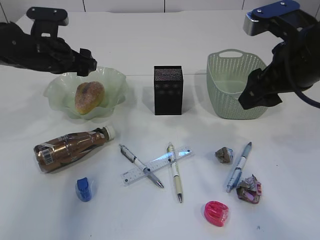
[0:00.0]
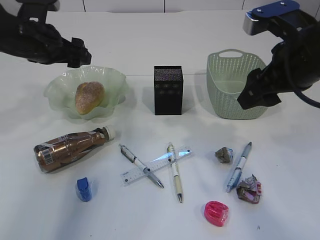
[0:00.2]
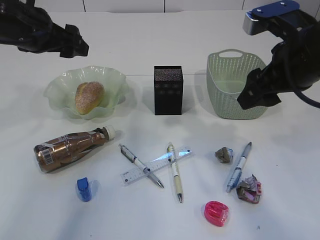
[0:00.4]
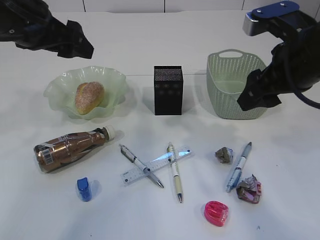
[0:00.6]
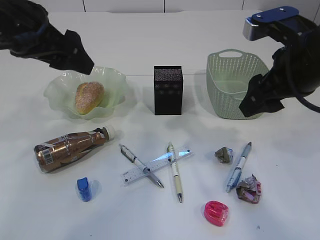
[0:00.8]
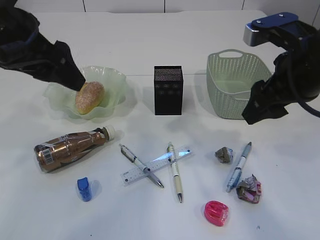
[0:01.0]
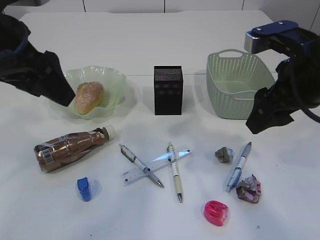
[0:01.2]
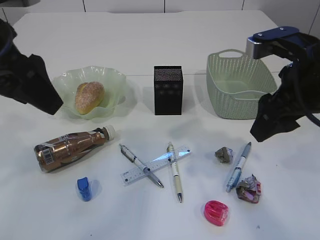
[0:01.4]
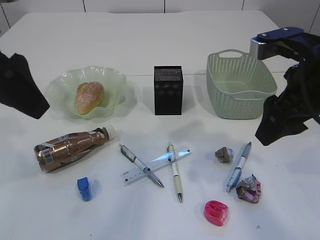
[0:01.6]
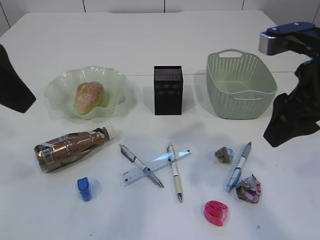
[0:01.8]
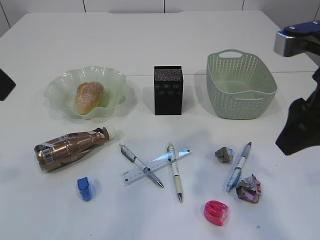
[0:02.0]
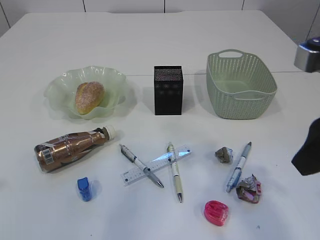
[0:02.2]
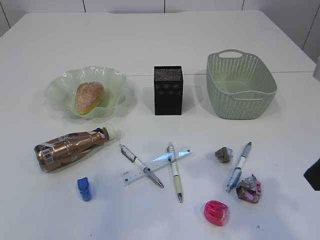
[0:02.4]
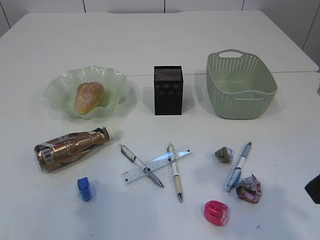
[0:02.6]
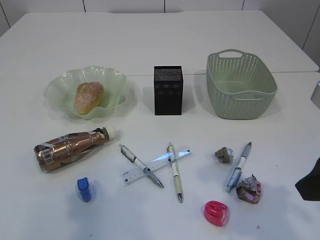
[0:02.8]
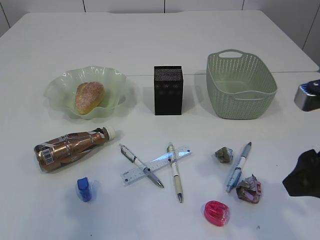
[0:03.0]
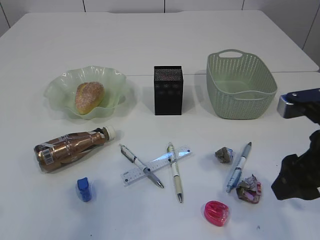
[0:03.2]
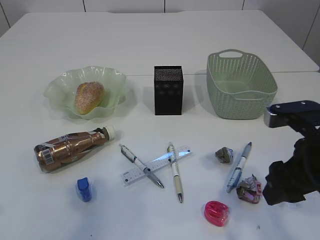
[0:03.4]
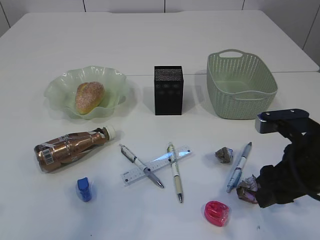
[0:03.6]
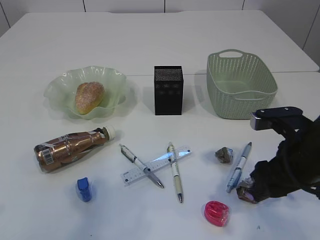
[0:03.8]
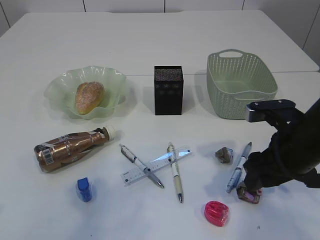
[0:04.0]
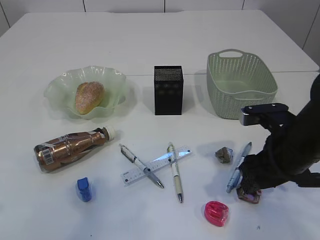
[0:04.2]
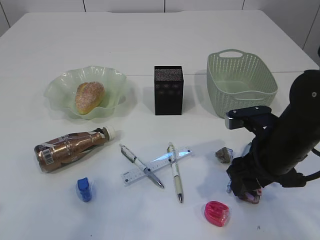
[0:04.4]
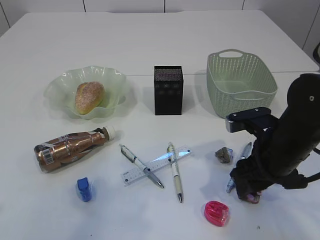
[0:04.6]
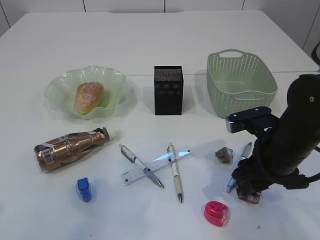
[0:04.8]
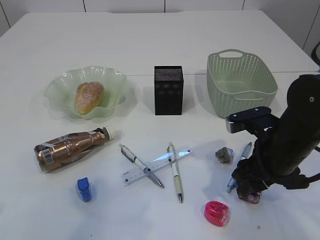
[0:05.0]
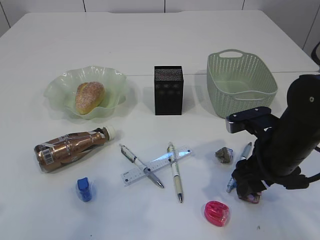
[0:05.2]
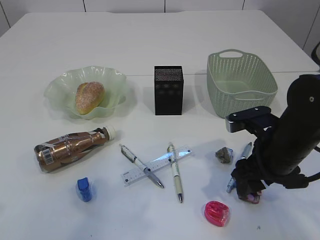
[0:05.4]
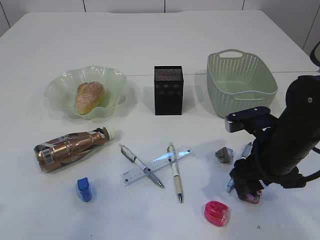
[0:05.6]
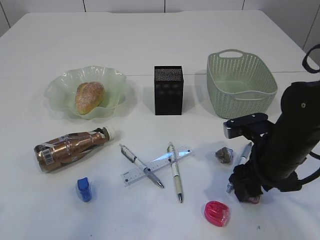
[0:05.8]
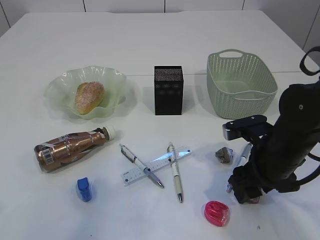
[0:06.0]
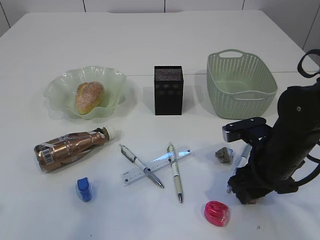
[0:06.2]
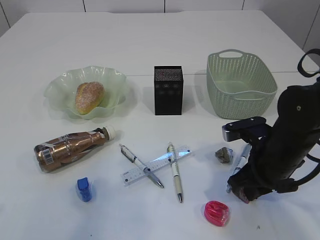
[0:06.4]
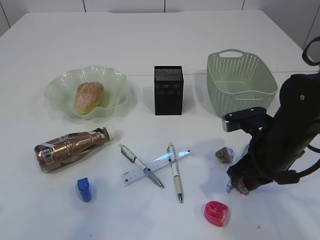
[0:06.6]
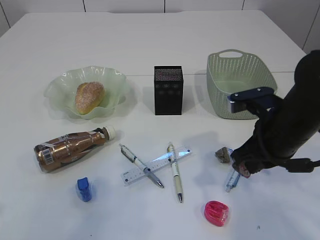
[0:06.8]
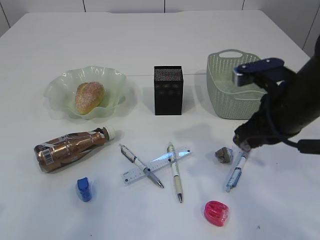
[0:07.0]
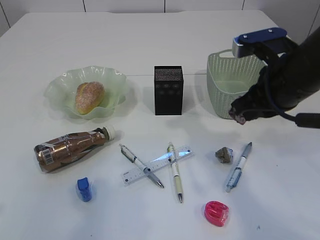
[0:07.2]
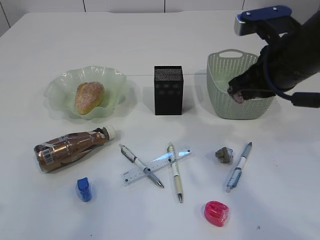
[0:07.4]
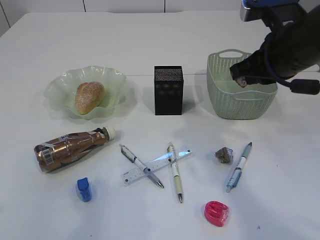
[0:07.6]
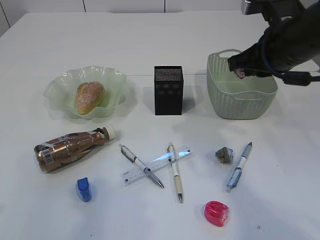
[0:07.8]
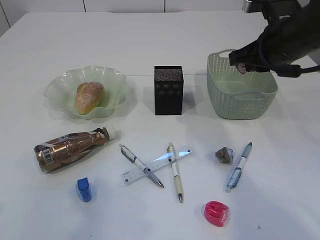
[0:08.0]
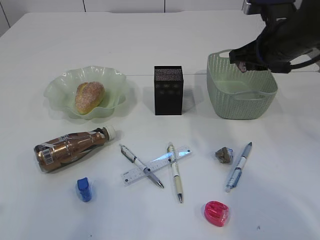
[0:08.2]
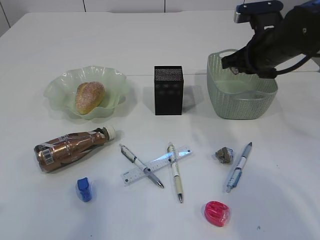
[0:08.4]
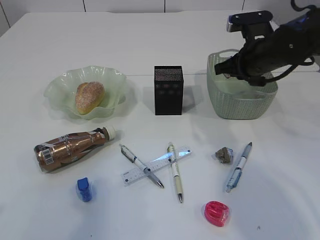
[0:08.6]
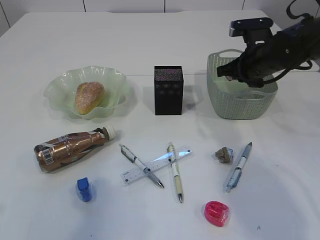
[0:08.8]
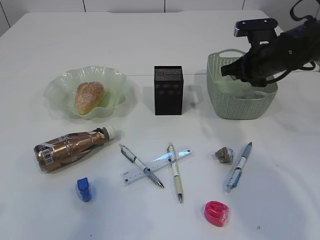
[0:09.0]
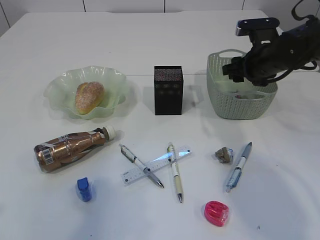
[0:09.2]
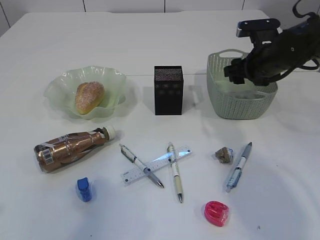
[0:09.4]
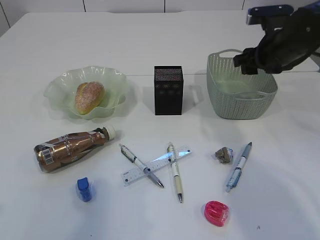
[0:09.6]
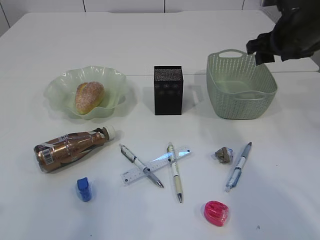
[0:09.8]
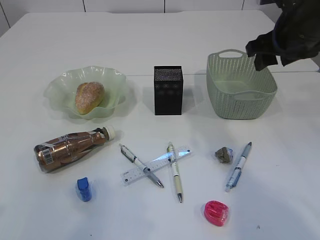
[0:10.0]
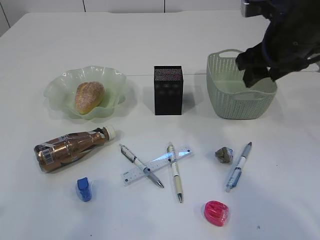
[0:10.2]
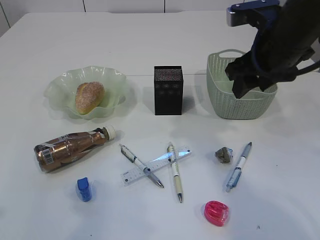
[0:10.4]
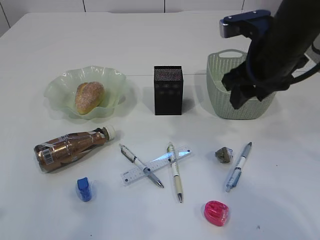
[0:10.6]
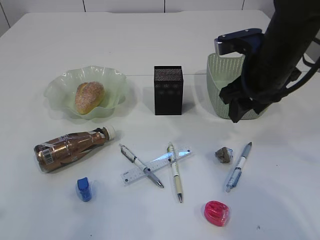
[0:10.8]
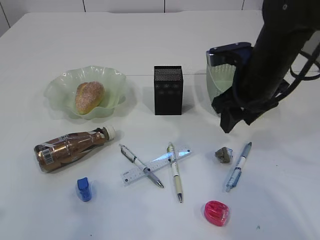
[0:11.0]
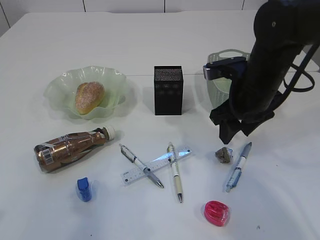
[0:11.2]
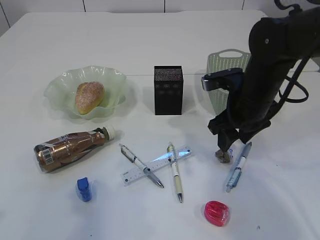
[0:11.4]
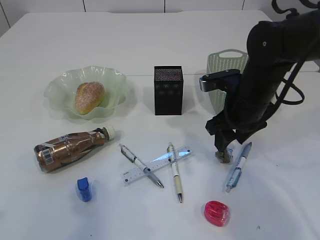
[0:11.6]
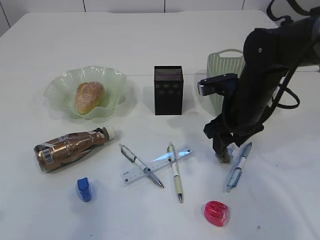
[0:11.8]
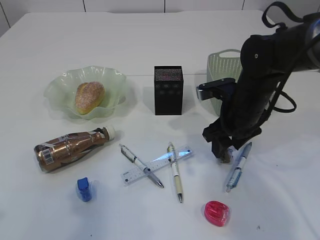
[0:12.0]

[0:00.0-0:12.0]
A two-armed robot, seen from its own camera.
Step, 0:00.6 to 0:07.6: Pick up the waste paper.
Step, 0:07.8 to 0:09.6: Place the waste paper in the basket.
0:00.0 to 0:01.6: The left gripper heads backward and upward, covering about 25 cm.
0:01.6 to 0:03.0: The left gripper moves backward and to the left, some 15 cm, while the right gripper is displaced backward by some 10 cm.
0:03.0 to 0:04.4: The right gripper heads downward and forward, covering roughly 15 cm.
0:04.4 to 0:06.0: The grippers move only a little.
0:06.0 to 0:07.6: The right gripper heads upward, covering approximately 15 cm, and closes its fingers.
0:07.6 to 0:09.0: The right gripper travels forward and downward by some 15 cm.
0:09.0 to 0:10.4: The right gripper moves backward, upward and to the left, about 15 cm, and opens.
0:10.4 to 0:12.0: The right gripper travels downward by about 15 cm.

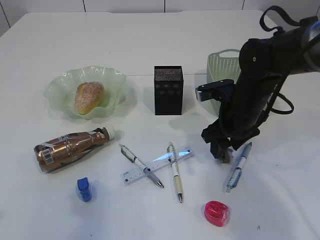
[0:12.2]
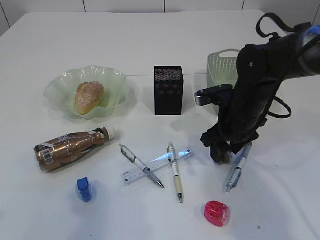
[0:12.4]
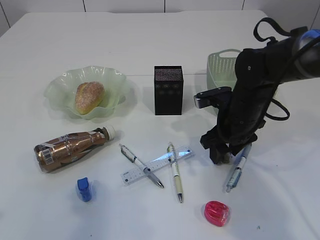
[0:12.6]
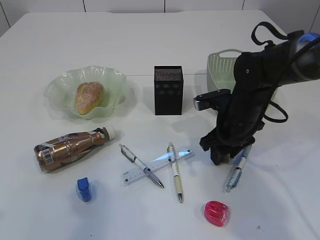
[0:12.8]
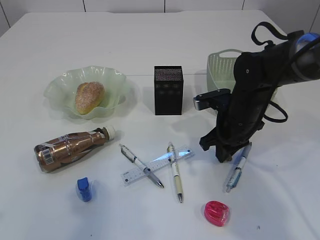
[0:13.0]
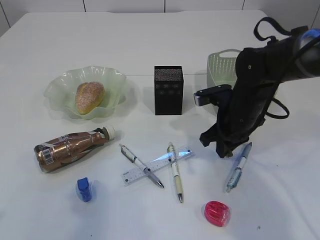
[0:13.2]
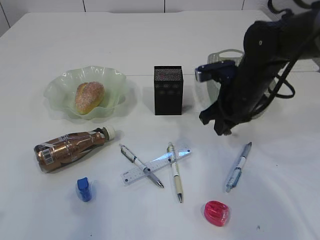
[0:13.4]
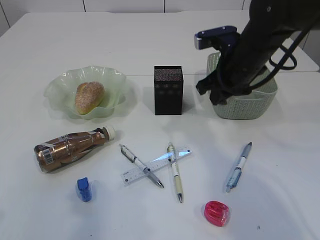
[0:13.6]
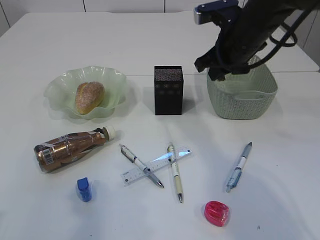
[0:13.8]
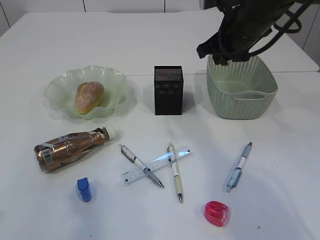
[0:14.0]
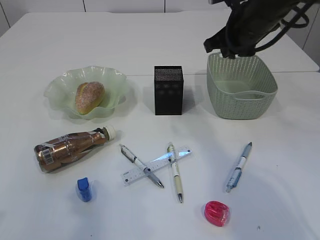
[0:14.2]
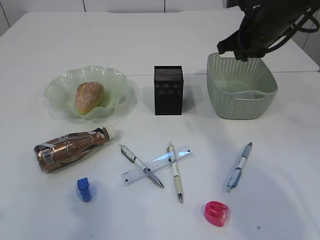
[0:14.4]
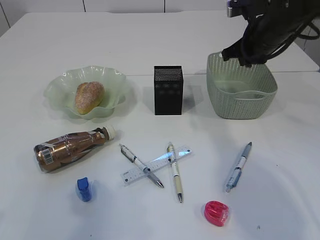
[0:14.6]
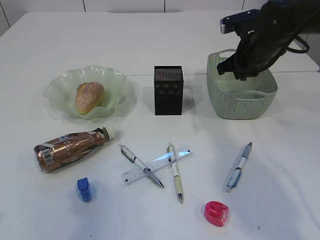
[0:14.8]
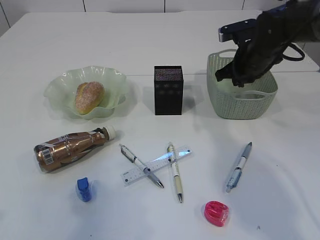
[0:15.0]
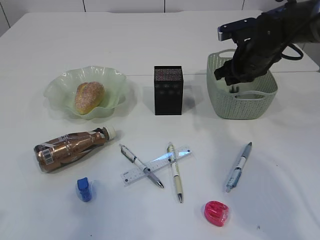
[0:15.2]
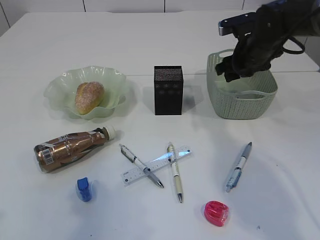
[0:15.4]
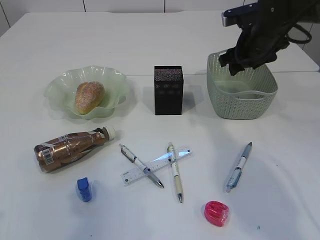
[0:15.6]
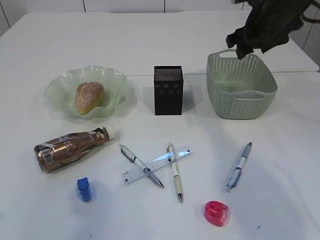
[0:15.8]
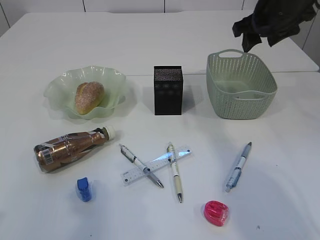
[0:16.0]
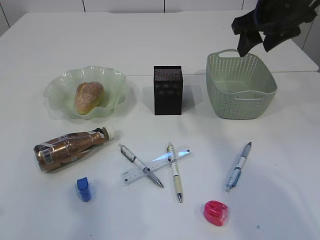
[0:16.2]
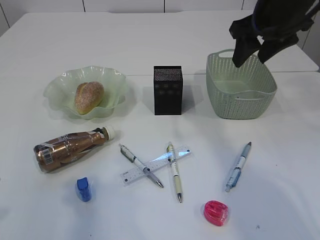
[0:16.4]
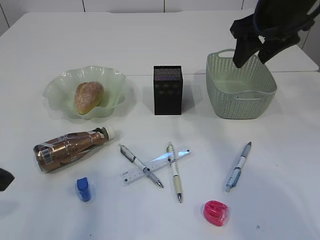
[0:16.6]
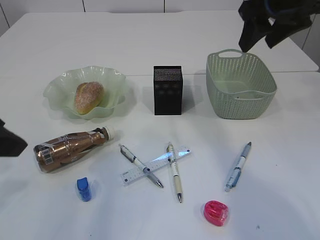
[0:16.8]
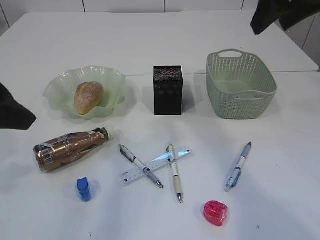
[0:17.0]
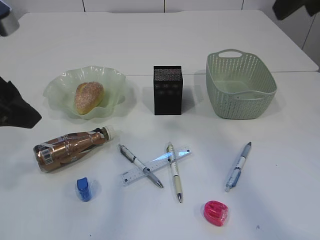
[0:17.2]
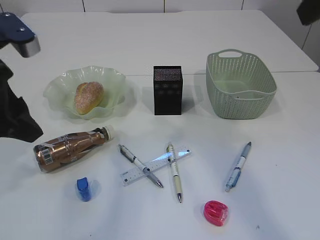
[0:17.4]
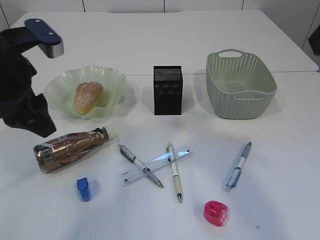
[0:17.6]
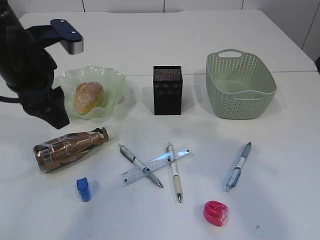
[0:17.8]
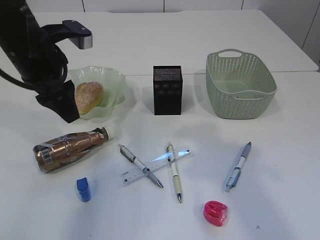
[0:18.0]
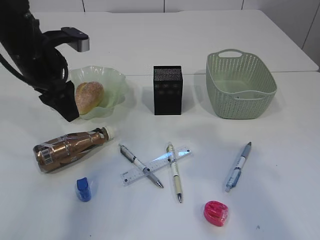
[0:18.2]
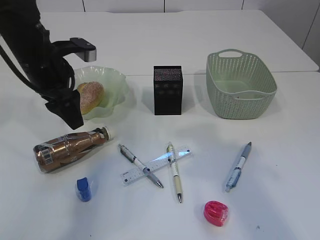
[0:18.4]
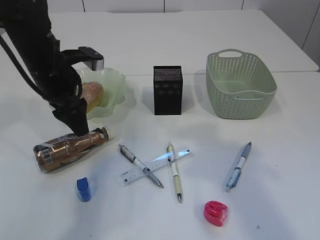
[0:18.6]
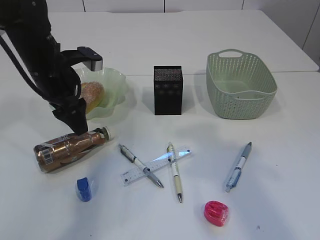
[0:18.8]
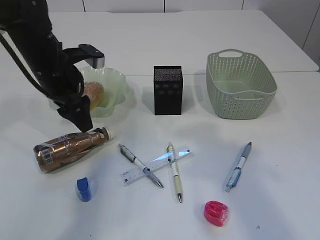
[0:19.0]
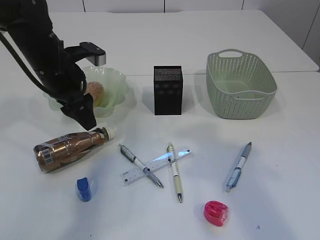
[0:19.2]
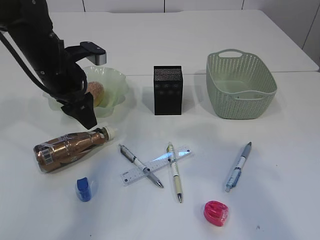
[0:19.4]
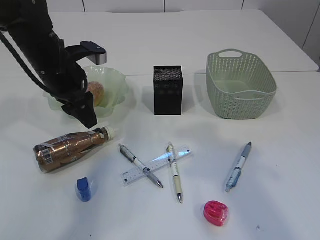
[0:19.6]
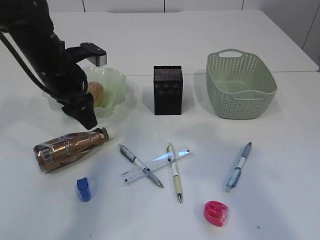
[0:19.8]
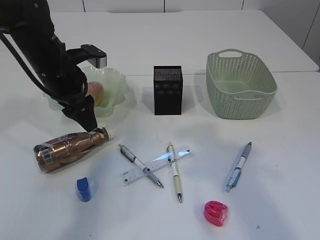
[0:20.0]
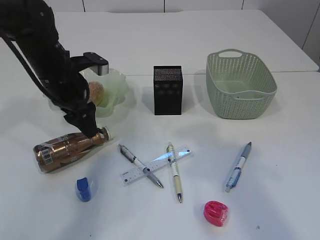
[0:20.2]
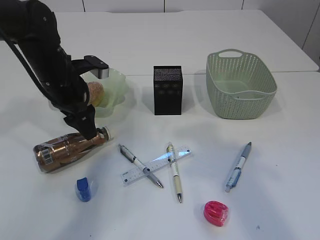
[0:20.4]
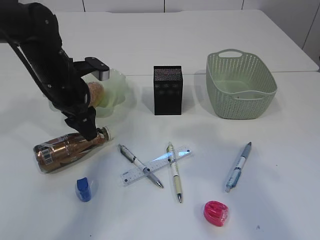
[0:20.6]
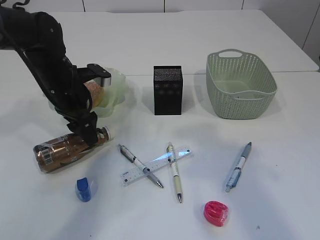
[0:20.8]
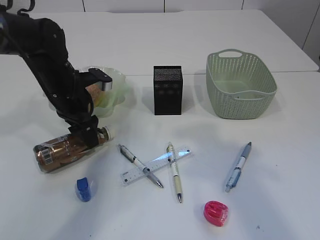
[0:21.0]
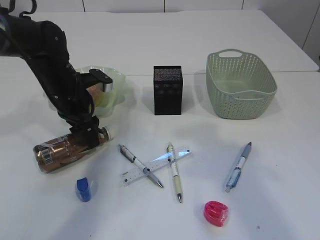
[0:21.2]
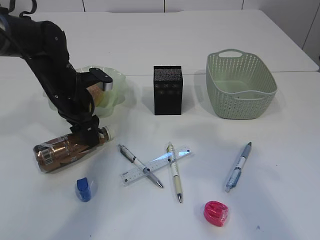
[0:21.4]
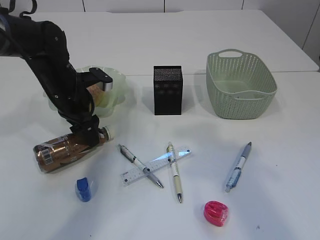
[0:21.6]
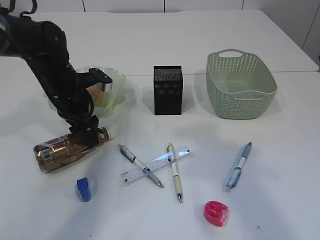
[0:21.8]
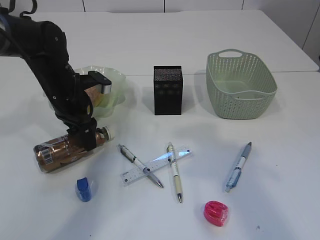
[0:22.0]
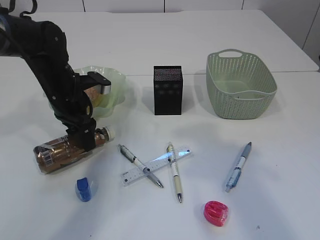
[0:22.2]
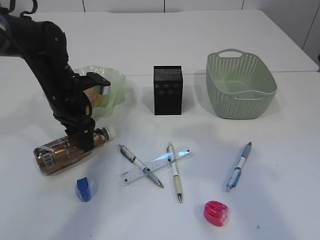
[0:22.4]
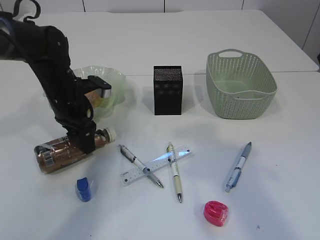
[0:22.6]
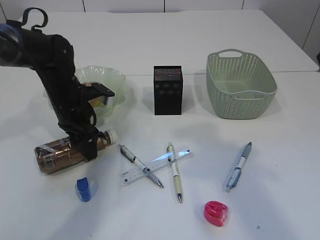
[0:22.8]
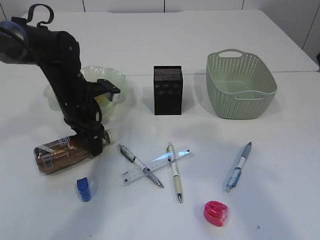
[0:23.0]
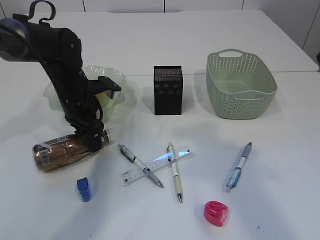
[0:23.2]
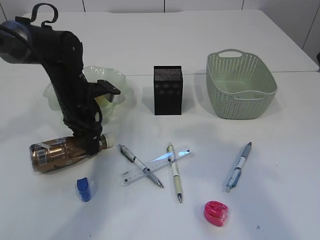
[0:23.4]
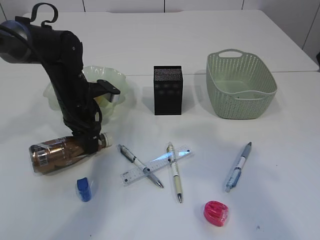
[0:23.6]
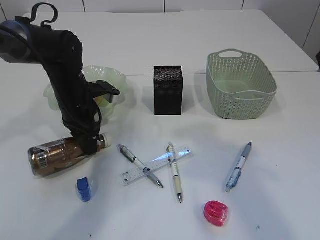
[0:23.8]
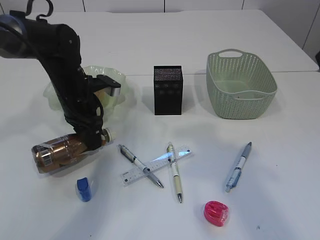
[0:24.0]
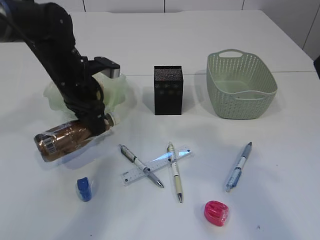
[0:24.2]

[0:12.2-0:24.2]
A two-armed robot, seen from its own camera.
Step, 0:13.6 to 0:15.4: Place the waste paper in the basket.
0:12.2 to 0:13.8: The right gripper is displaced upward by approximately 10 cm, and closes up.
0:13.8 to 0:15.2: The right gripper shifts roughly 10 cm downward, to the right and forward, and opens its fingers.
0:15.2 to 0:16.6: The left gripper heads forward, covering about 5 cm. Meanwhile the right gripper is displaced upward and backward by roughly 15 cm.
0:16.6 to 0:18.2: The left gripper moves forward, some 20 cm. The right gripper shifts roughly 20 cm backward.
0:18.2 to 0:19.8: The grippers move only a little.
0:19.8 to 0:21.2: The left gripper is displaced downward by approximately 5 cm.
0:21.2 to 0:22.6: There are only small adjustments of the grippers.
0:22.6 to 0:24.2: The left gripper ends up approximately 5 cm from where it was, and closes its fingers.
